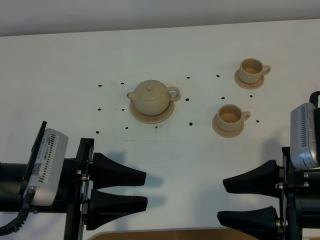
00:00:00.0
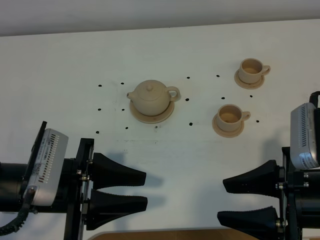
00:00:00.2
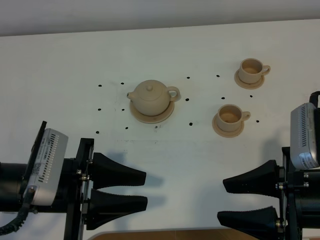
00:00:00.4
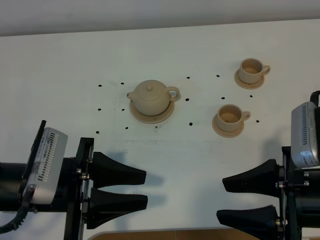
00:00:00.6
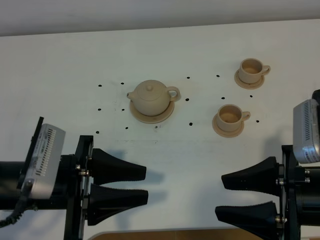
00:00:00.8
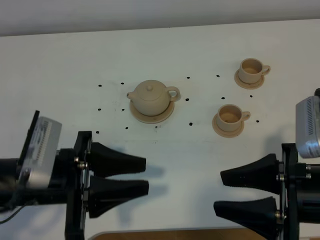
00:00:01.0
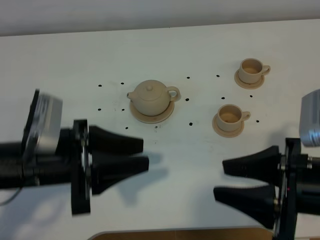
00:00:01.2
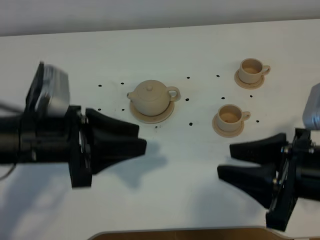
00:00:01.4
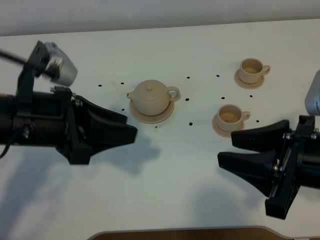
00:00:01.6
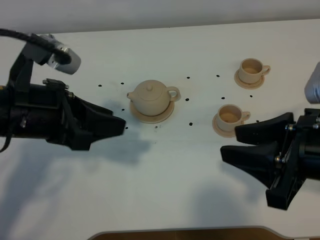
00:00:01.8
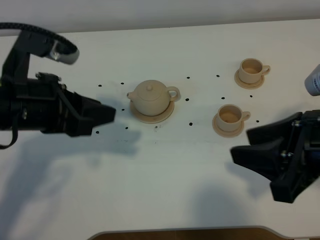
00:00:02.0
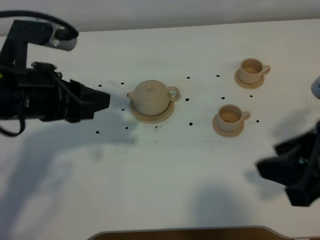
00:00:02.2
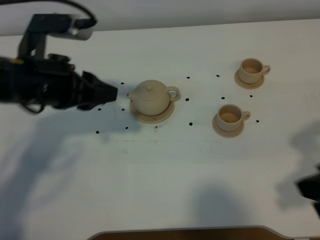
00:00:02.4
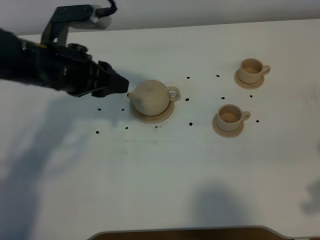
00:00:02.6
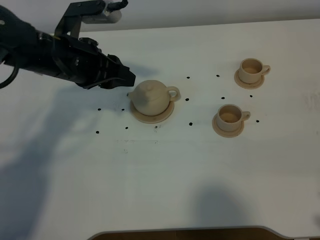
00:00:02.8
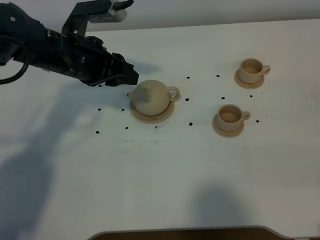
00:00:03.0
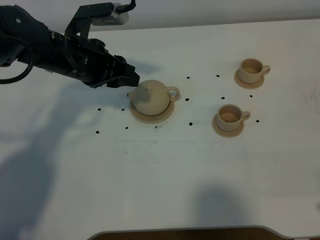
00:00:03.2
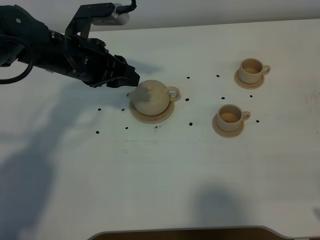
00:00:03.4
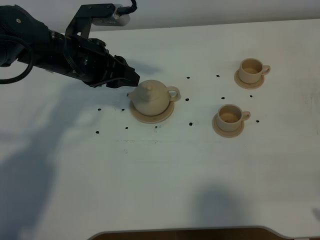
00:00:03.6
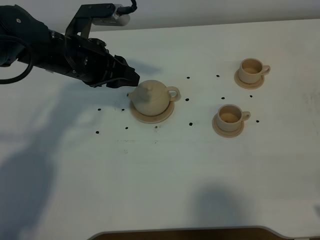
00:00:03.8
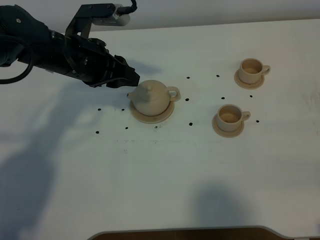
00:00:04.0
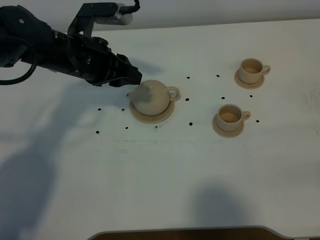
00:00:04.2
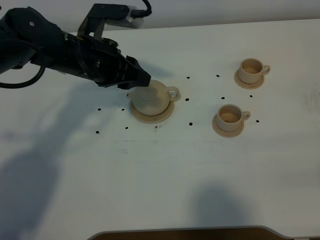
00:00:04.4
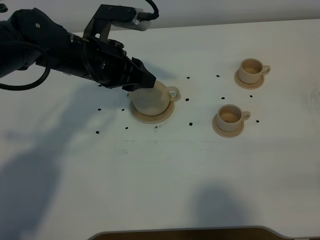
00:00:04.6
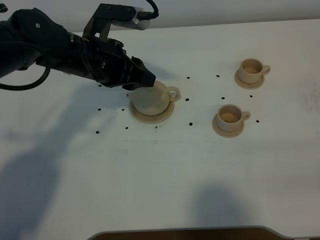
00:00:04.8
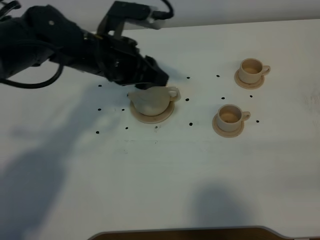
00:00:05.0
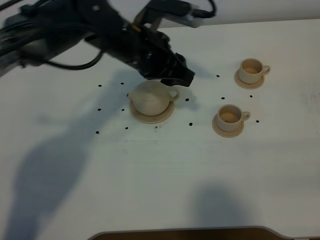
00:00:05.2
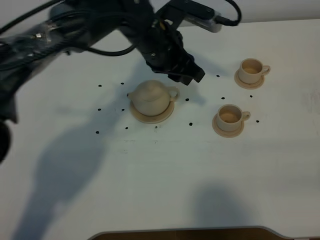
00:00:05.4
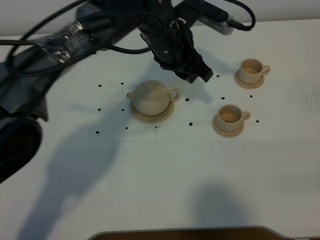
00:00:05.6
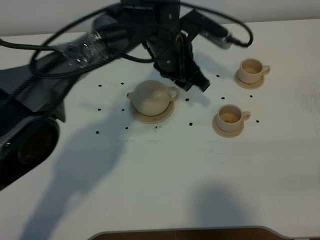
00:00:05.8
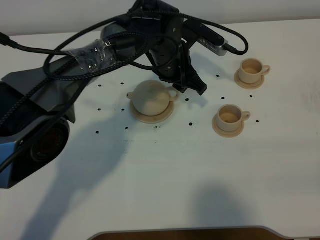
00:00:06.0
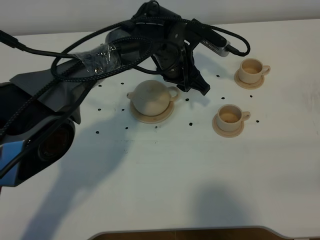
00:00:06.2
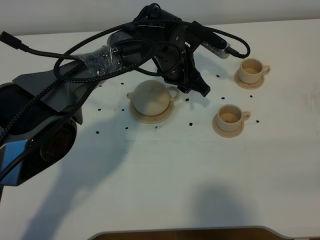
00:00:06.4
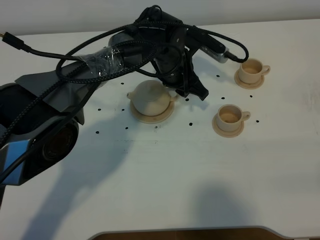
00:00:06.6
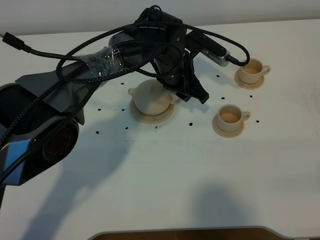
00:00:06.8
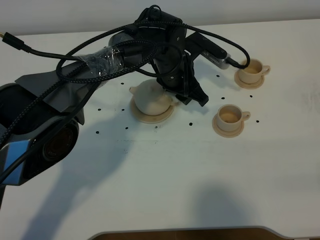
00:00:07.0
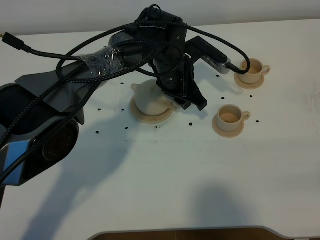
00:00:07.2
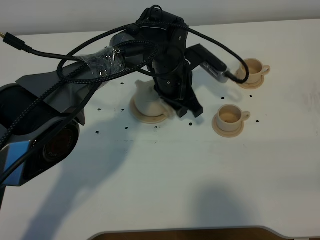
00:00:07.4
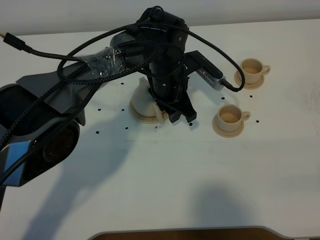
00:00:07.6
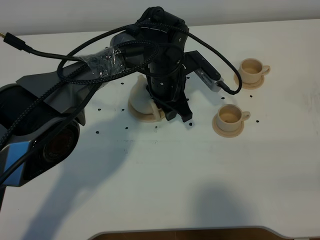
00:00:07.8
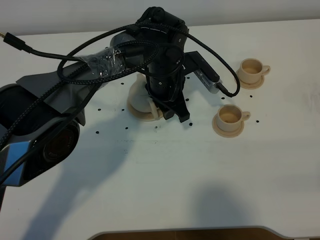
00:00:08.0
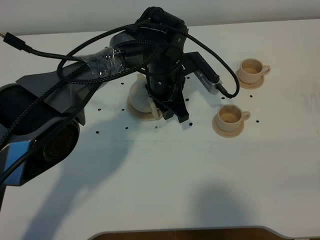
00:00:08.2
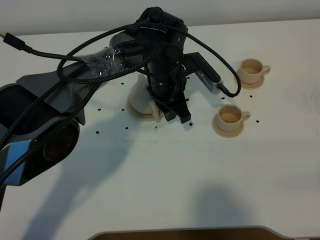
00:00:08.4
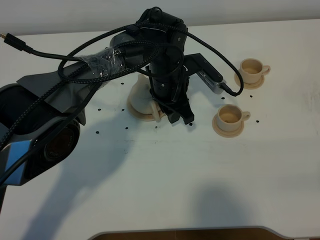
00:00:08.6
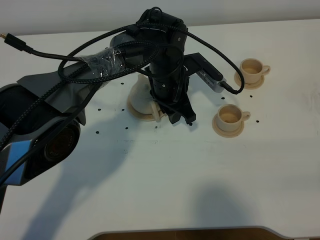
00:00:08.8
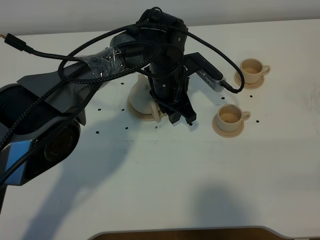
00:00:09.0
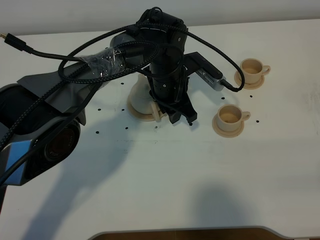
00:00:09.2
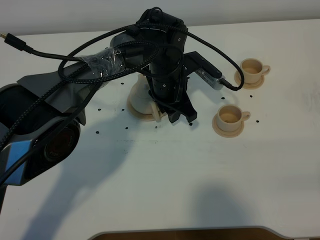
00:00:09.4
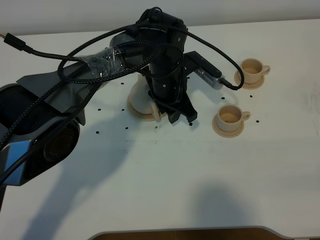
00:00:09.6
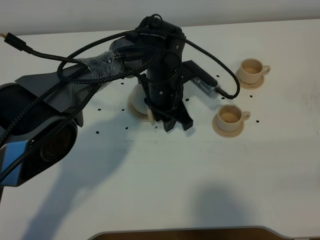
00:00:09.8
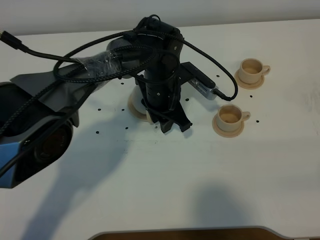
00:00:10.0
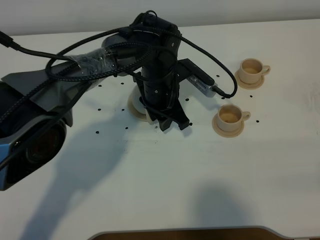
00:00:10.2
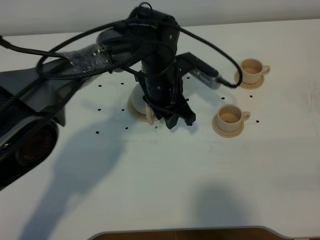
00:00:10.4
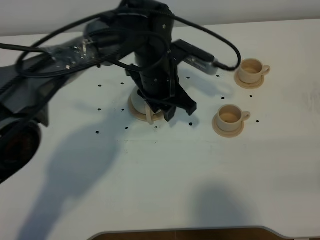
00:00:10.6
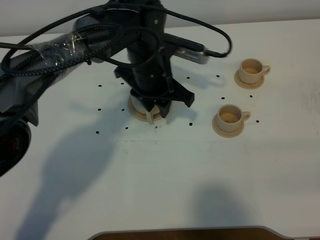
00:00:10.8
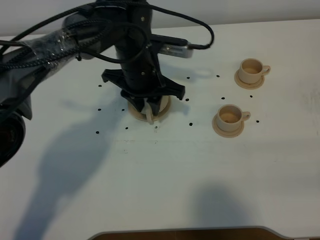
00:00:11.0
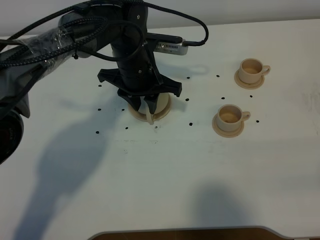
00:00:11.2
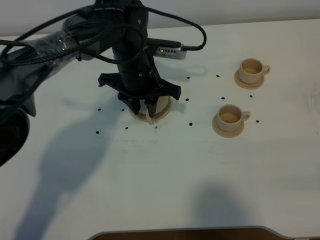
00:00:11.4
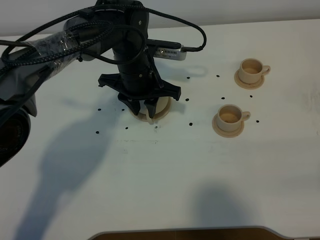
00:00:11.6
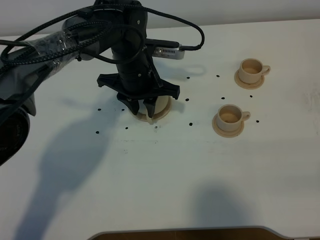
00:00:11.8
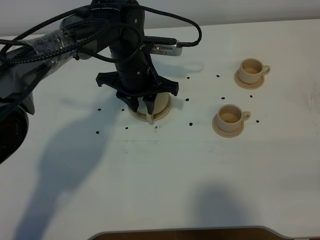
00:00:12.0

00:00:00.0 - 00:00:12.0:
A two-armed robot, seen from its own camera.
Task of the whole recording: grasp the brown teapot and pour the tea into the two brown teacups one by one, put the brown teapot back in its original place.
00:00:00.0 - 00:00:01.6: The left gripper shifts about 10 cm upward and forward.
00:00:01.6 - 00:00:03.0: The right gripper goes approximately 15 cm to the right and backward. Meanwhile the left gripper travels forward by some 15 cm.
00:00:04.4 - 00:00:06.0: The left gripper heads to the right, forward and downward, covering about 15 cm.
00:00:07.6 - 00:00:10.4: The grippers move only a little.
00:00:10.4 - 00:00:12.0: The left gripper moves to the left, some 5 cm.

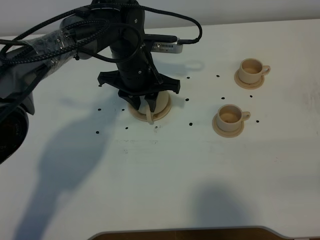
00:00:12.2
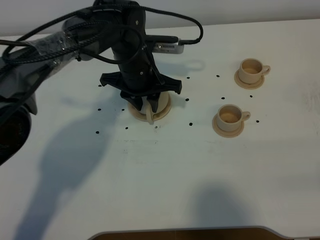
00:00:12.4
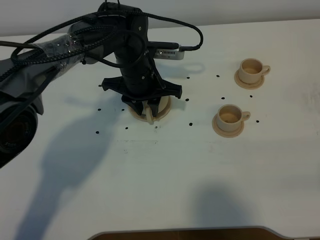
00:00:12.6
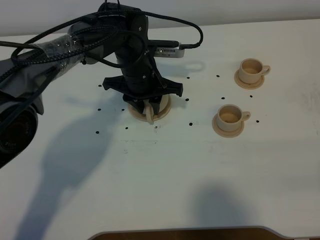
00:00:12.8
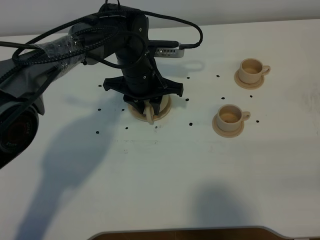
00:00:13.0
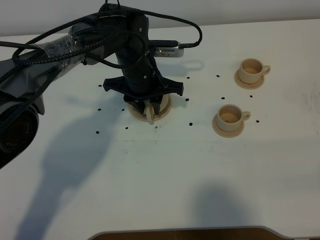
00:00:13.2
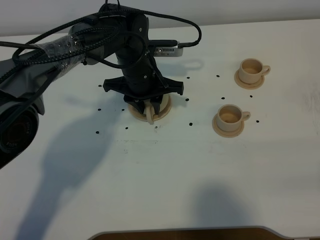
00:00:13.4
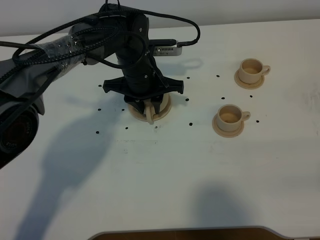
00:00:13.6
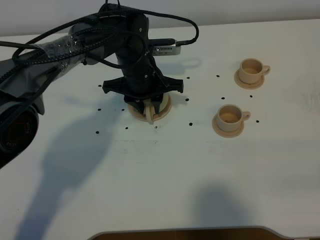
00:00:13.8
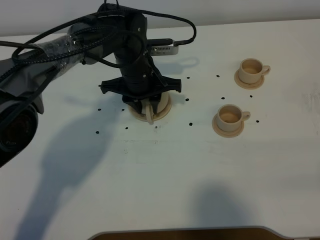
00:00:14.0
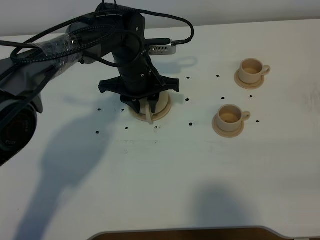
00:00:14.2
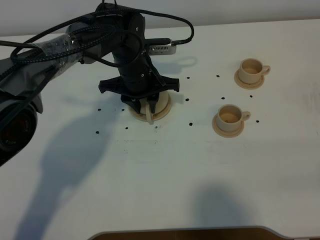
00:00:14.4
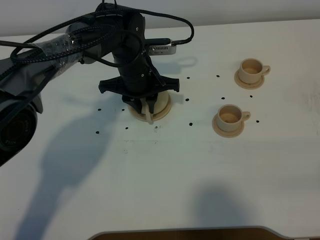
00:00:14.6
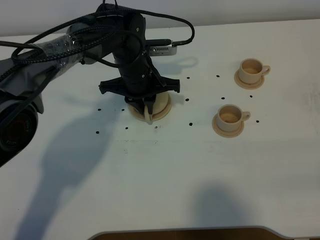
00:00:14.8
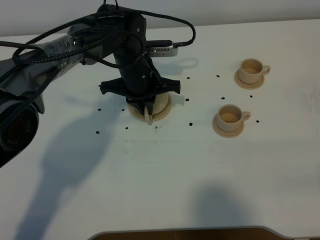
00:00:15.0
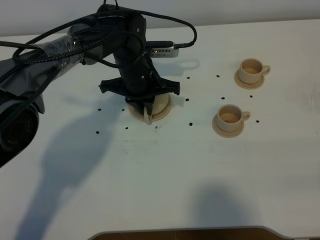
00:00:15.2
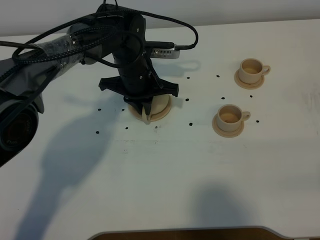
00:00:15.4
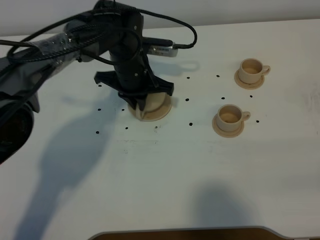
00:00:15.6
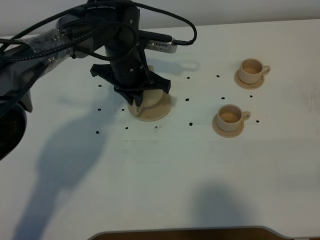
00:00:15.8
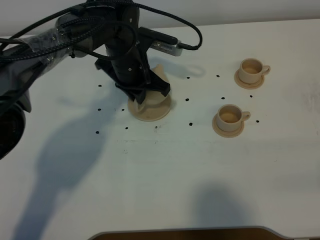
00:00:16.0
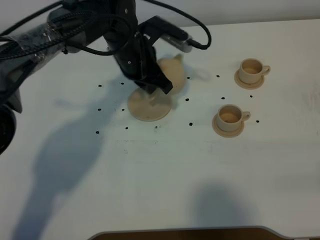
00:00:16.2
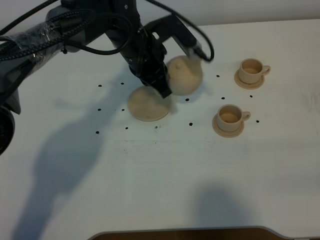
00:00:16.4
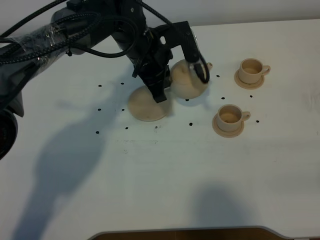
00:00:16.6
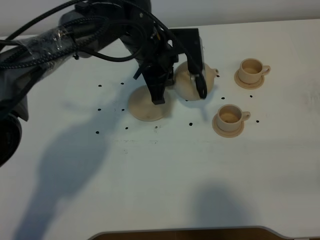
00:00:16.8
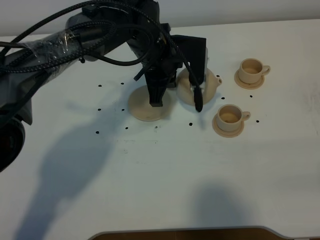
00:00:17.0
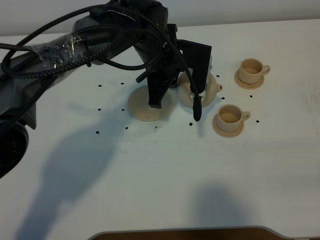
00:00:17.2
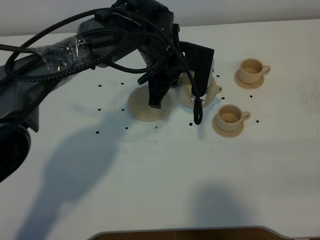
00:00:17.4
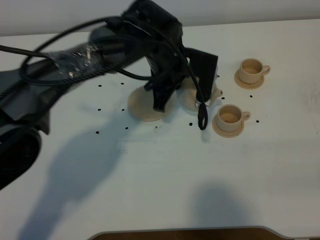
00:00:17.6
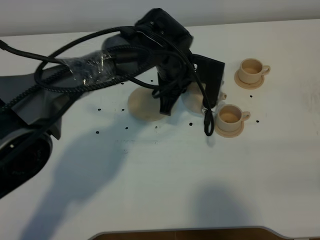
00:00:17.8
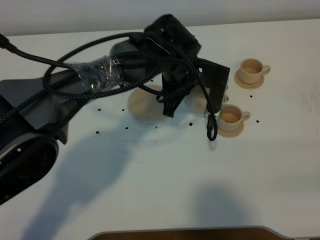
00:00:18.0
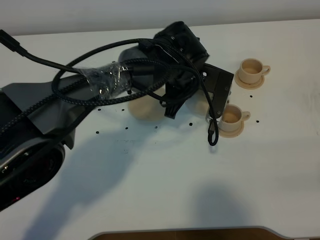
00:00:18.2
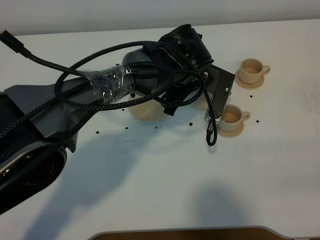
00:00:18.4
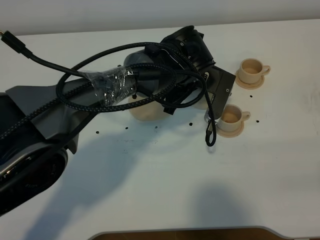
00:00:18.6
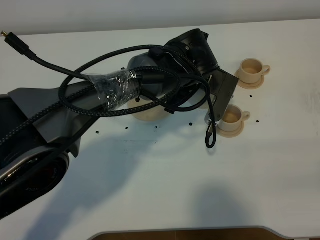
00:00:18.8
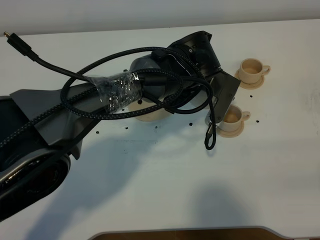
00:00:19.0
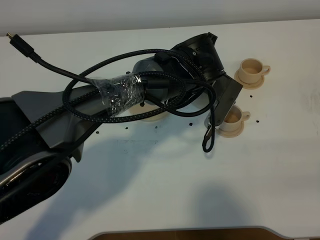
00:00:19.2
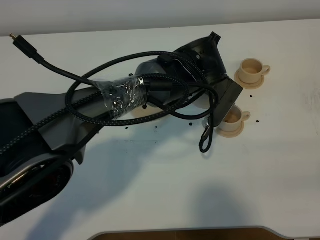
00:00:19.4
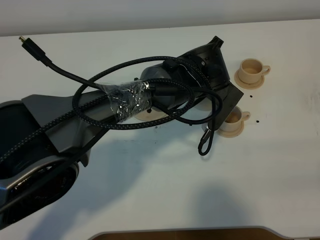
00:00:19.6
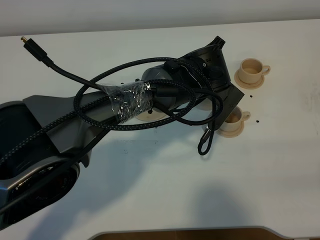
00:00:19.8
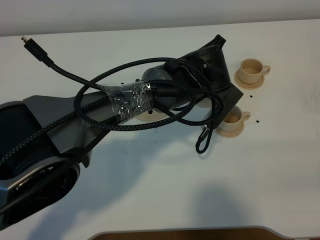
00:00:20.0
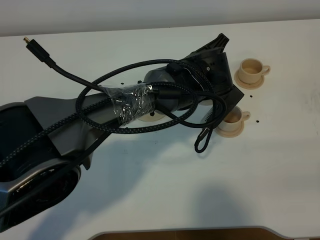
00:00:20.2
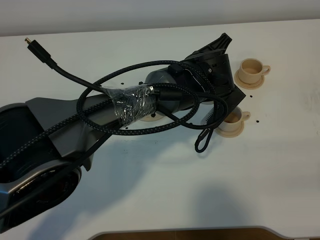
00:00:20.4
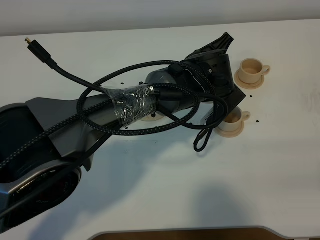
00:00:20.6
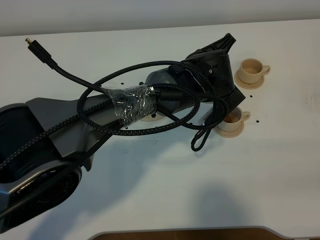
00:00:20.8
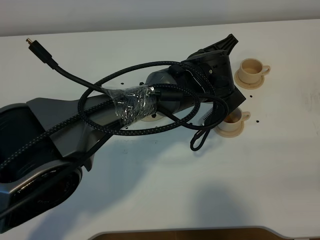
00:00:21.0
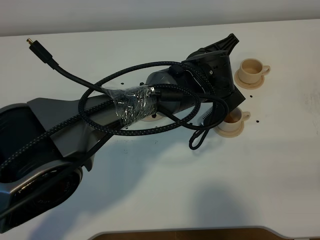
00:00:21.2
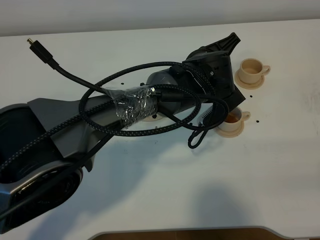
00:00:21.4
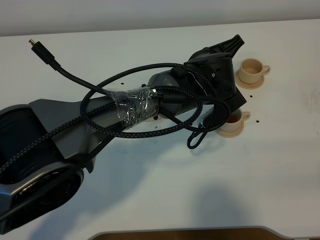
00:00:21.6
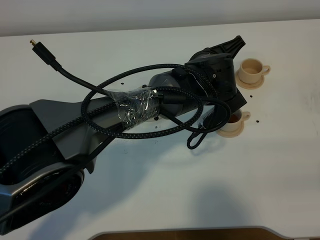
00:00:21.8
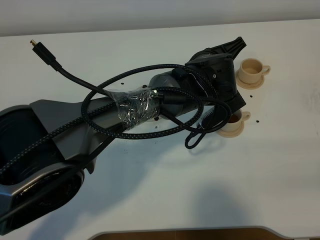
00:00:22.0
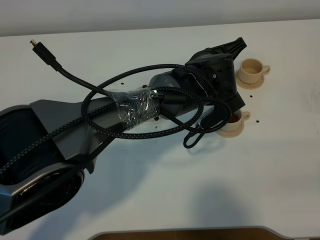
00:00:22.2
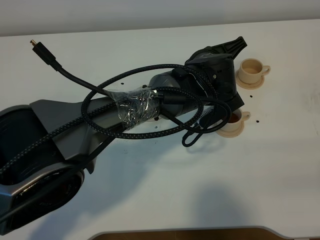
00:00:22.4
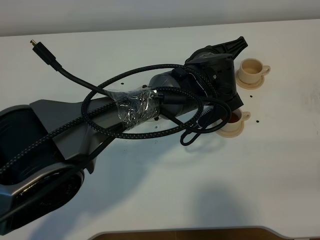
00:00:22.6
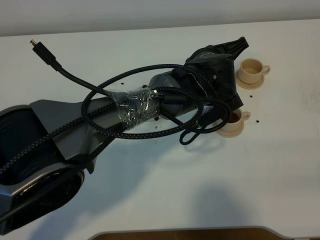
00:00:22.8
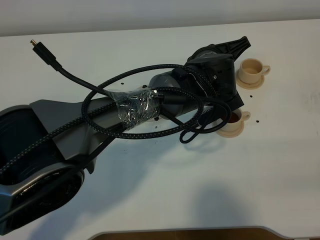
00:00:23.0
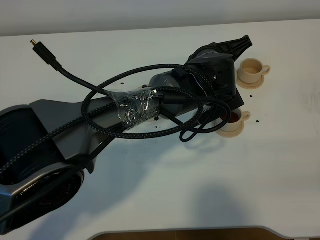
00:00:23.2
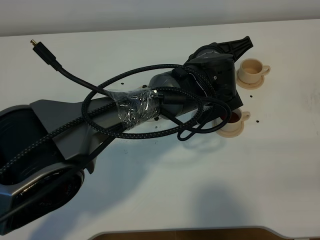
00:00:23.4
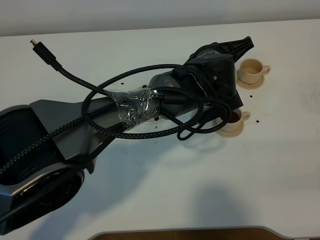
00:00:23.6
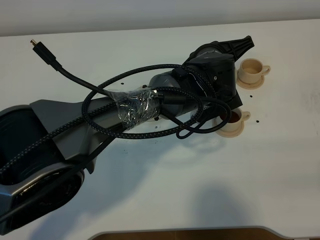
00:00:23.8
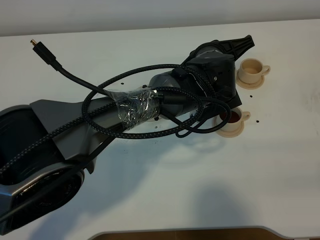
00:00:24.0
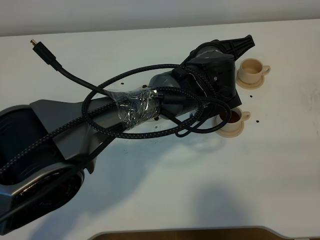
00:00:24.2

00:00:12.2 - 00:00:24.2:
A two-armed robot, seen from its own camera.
Task of the whole recording: grasp the brown teapot and pour the tea into the two brown teacups one by one, put the brown teapot back in its original place.
Step, 00:00:12.2 - 00:00:15.6: Pick up the teapot with the left gripper.
00:00:12.2 - 00:00:13.8: The grippers move only a little.
00:00:13.8 - 00:00:15.2: The left gripper closes its fingers.
00:00:15.2 - 00:00:16.6: The left gripper heads upward, covering approximately 5 cm.
00:00:16.6 - 00:00:18.2: The left gripper heads to the right, covering roughly 5 cm.
00:00:19.8 - 00:00:21.2: The grippers stay close to where they were, moving slightly.
00:00:21.2 - 00:00:24.2: The grippers make only small movements.
